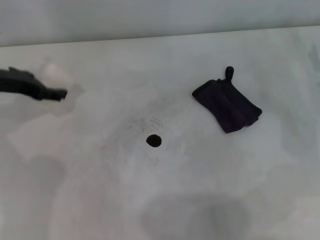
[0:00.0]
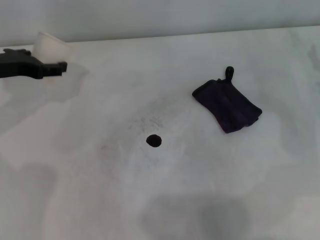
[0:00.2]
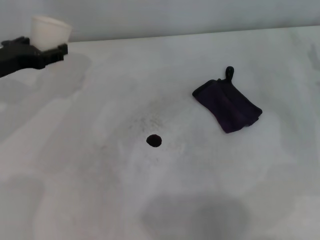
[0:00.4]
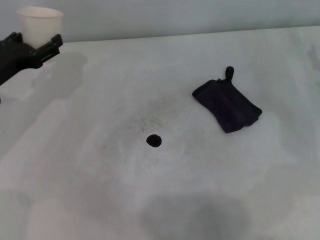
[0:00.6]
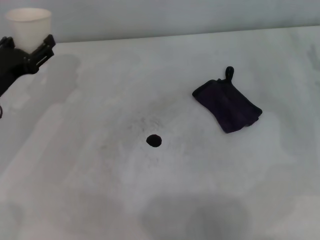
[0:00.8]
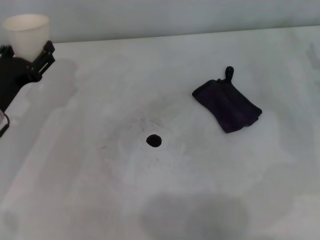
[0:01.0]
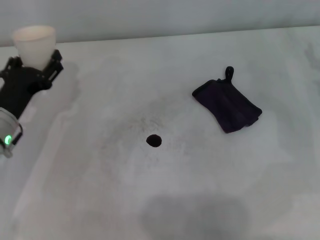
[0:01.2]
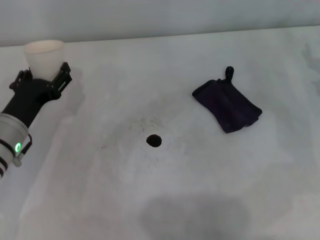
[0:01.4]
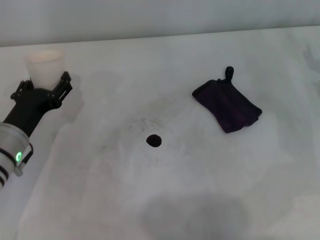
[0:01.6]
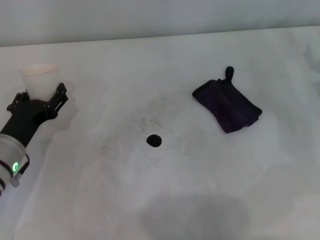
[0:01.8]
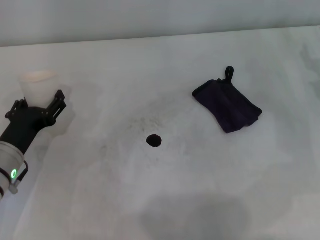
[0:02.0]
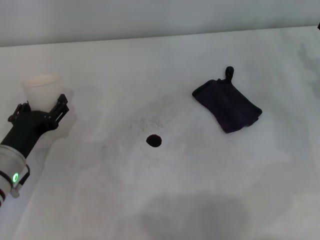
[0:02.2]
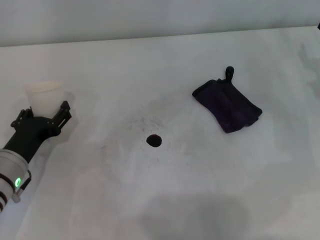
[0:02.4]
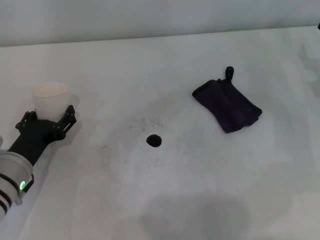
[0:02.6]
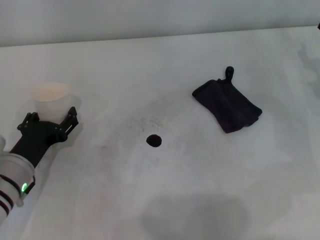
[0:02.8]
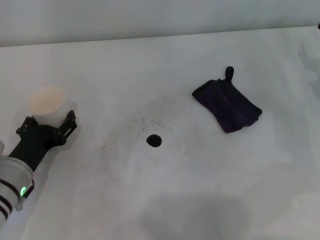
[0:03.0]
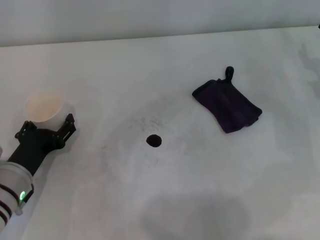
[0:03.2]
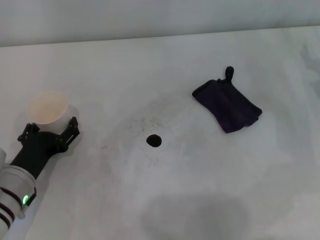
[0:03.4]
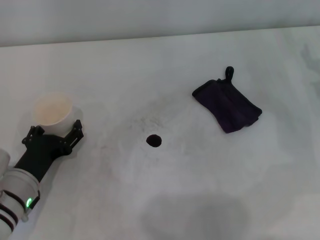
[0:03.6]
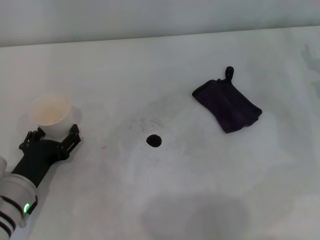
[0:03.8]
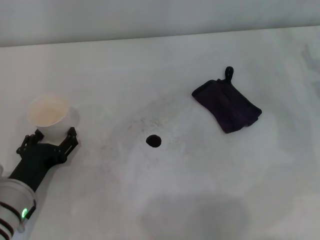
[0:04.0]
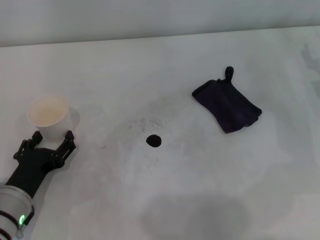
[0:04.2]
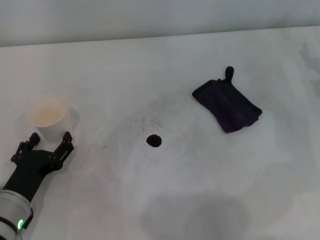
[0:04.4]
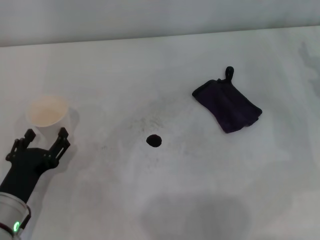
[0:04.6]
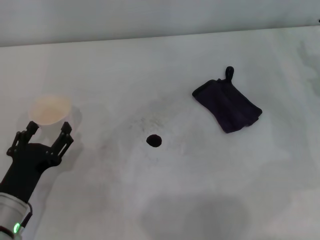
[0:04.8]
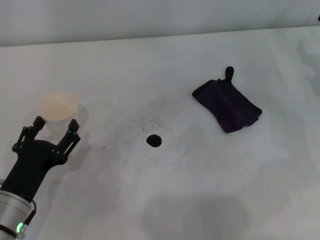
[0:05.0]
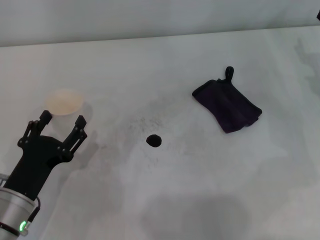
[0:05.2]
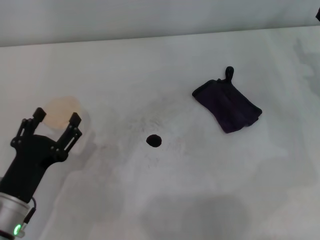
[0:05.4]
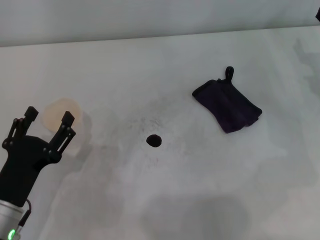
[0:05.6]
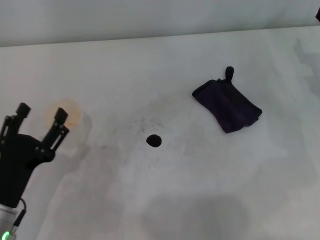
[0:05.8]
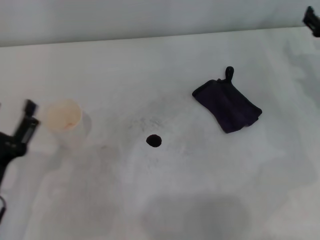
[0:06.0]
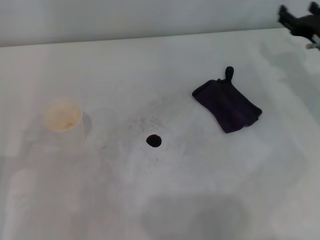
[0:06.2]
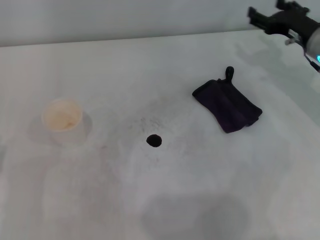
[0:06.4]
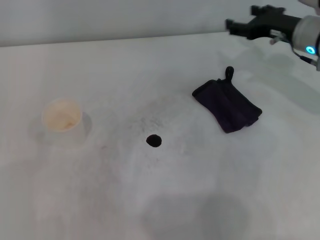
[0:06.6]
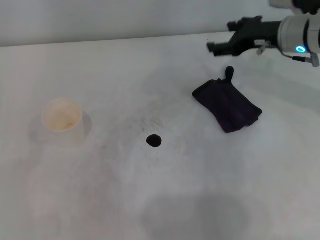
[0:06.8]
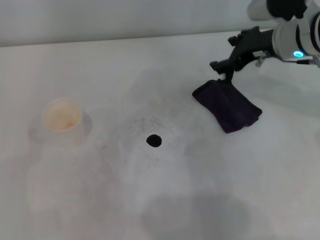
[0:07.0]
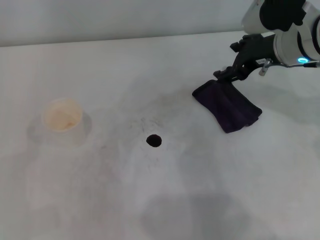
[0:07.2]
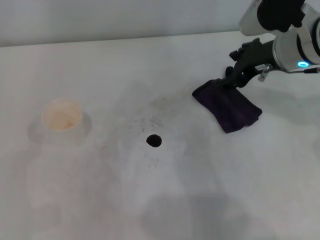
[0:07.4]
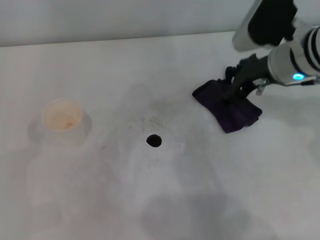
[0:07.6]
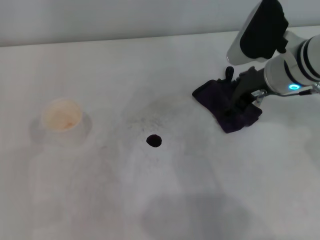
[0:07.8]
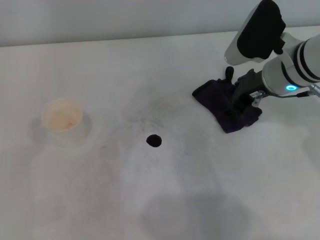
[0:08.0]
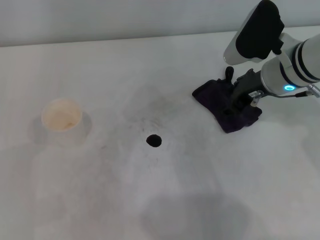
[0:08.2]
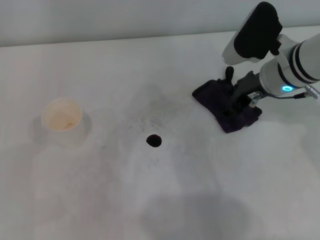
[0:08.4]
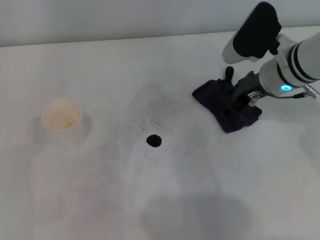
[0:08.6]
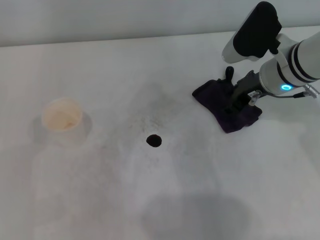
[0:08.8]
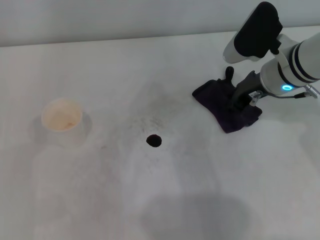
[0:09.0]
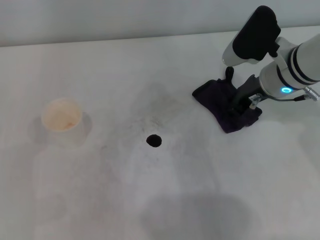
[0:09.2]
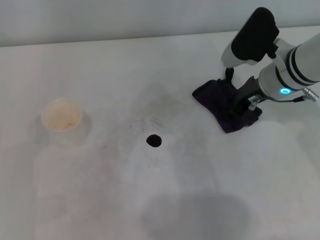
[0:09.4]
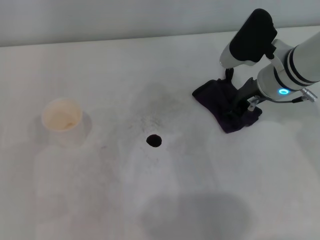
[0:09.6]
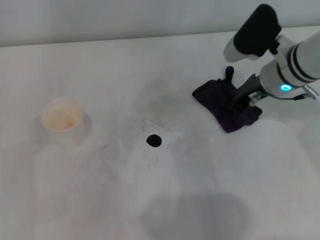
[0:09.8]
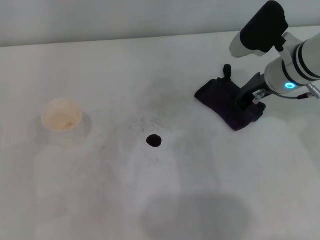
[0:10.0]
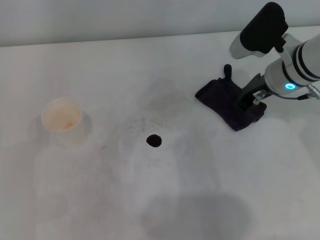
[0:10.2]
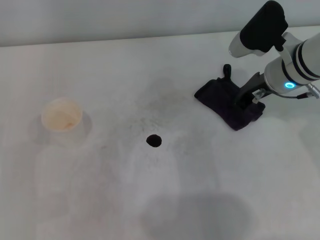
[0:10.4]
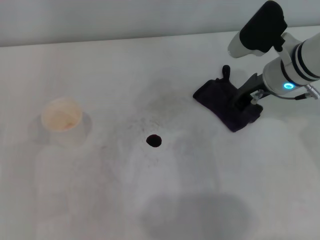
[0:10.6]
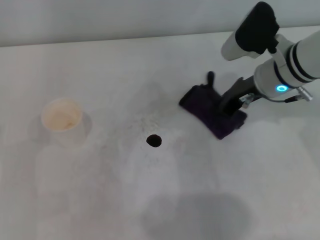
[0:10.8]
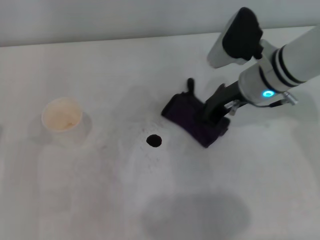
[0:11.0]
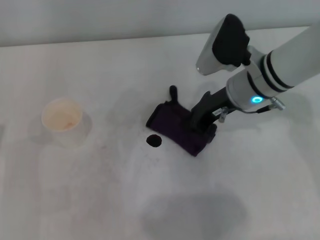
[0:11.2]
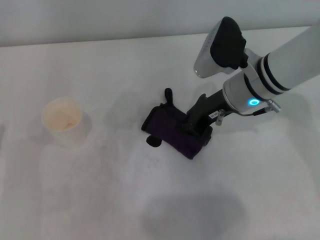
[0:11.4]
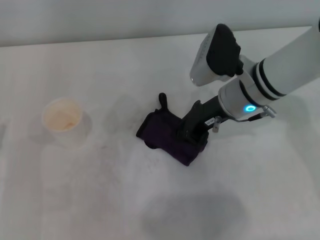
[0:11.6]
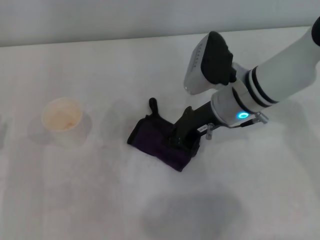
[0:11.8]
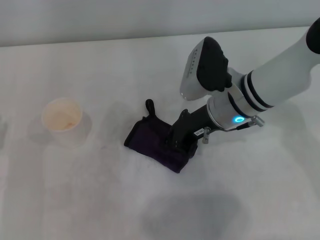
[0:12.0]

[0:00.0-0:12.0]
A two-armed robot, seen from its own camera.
Step, 0:00.0 to 0:04.0: Stand the paper cup upright with the left gripper.
Step, 0:04.2 to 0:10.2: Grasp the rag with the right gripper.
0:00.0 to 0:01.6: The left gripper shifts roughly 15 cm downward and backward.
0:01.6 to 0:03.0: The left gripper moves about 5 cm.
0:03.0 to 0:04.4: The grippers make only small movements.
0:04.4 to 0:06.0: The left gripper changes place by some 5 cm.
0:06.0 to 0:07.6: The left gripper is displaced to the left by approximately 5 cm; the right gripper goes roughly 15 cm to the left and upward.
0:07.6 to 0:09.0: The right gripper closes its fingers.
0:09.0 to 0:10.4: The right gripper closes up.
0:10.4 to 0:12.0: The right gripper travels to the left by approximately 10 cm.

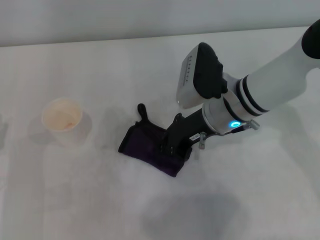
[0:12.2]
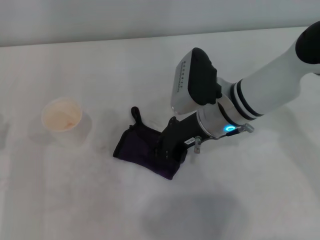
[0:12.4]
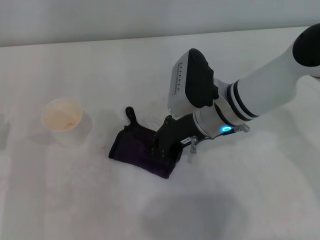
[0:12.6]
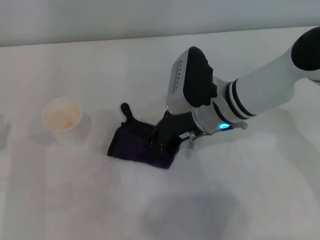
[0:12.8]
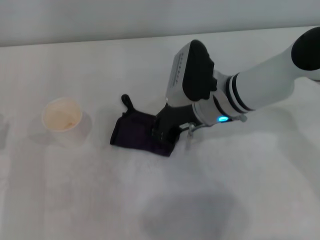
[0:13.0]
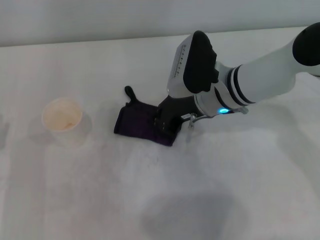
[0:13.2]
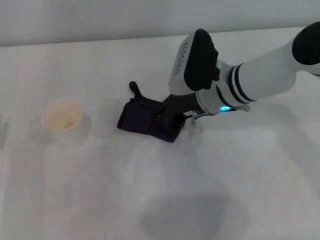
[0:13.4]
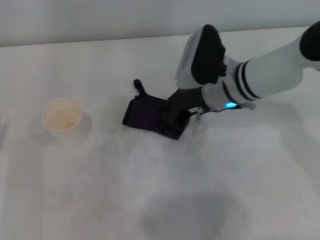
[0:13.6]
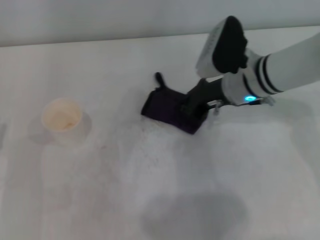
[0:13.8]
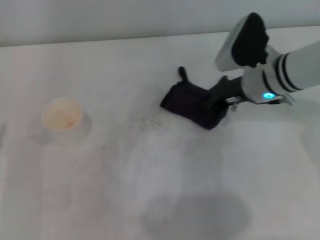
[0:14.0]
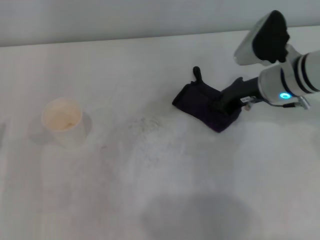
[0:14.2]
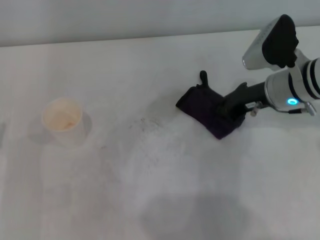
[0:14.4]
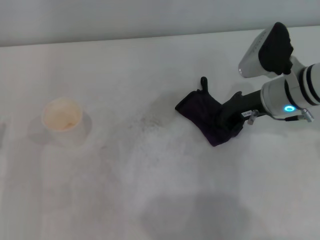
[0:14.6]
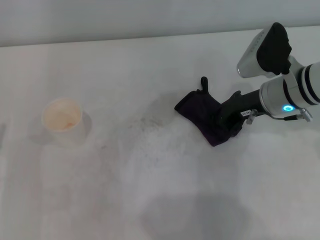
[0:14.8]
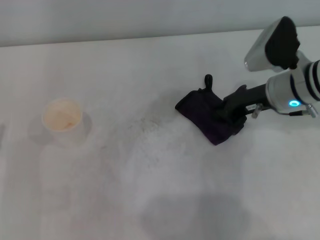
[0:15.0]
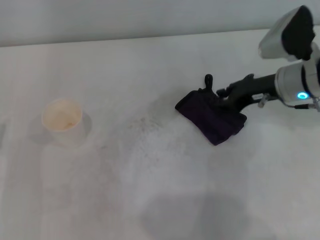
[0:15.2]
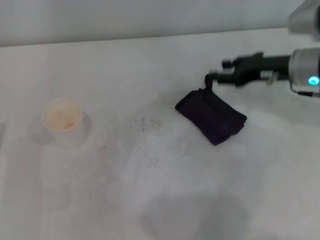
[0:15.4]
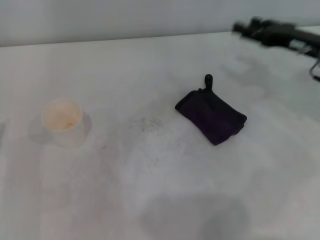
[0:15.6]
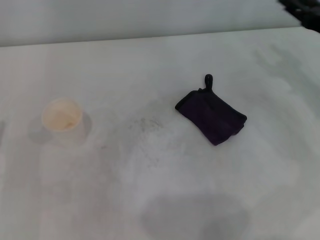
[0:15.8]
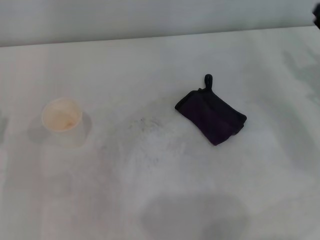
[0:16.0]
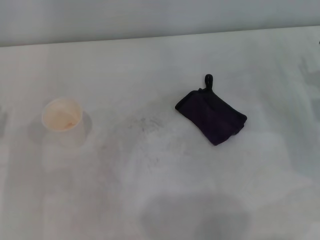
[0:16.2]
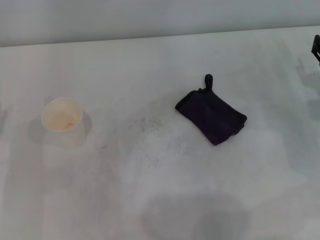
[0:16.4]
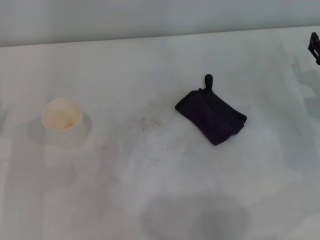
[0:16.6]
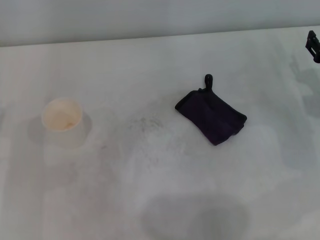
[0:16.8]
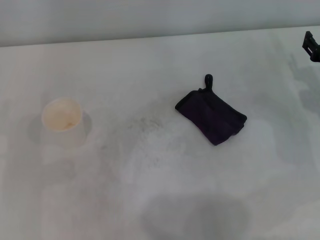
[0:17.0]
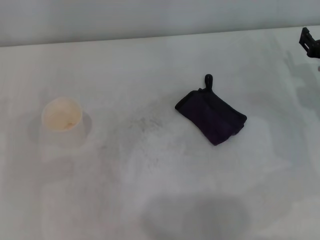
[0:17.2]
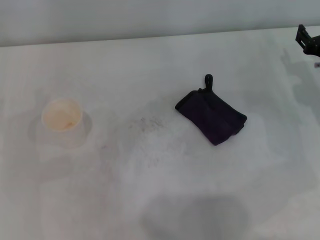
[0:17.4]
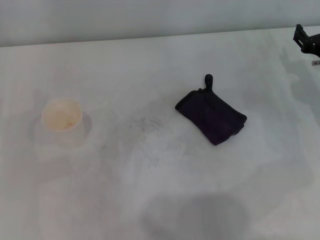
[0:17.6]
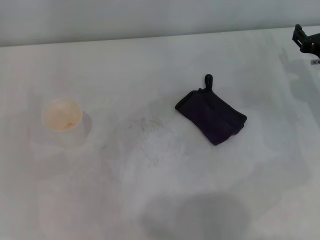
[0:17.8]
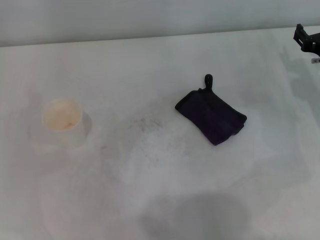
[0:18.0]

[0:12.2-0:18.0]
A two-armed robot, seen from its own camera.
Step, 0:14.2 to 0:14.8: Place the rag on the table with the right gripper.
0:12.2 to 0:13.6: The grippers make only small movements.
0:13.6 to 0:15.0: The right gripper is displaced to the right by some 10 cm.
0:15.0 to 0:16.6: The right gripper shifts roughly 15 cm to the right and downward, and opens.

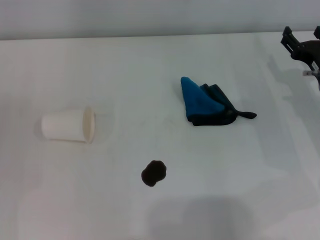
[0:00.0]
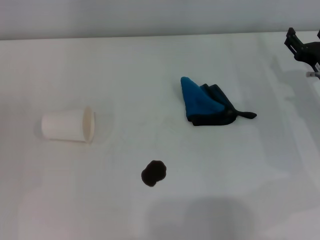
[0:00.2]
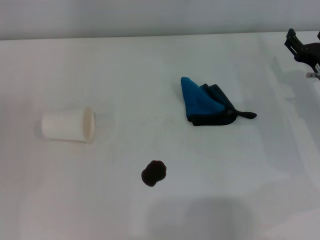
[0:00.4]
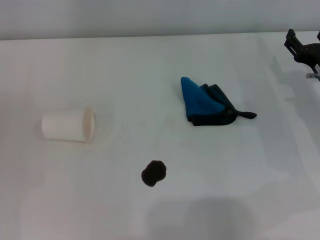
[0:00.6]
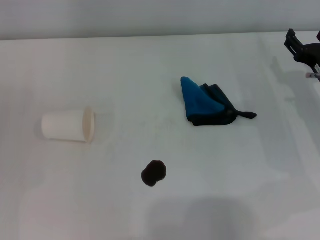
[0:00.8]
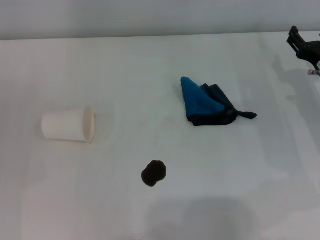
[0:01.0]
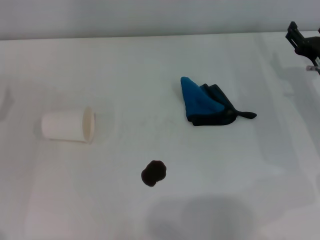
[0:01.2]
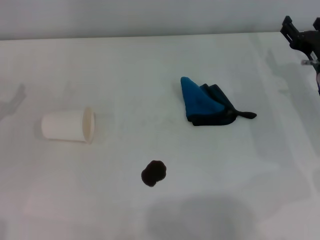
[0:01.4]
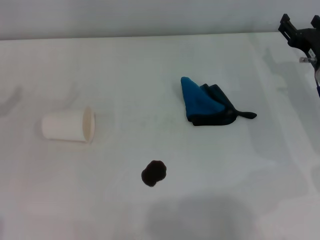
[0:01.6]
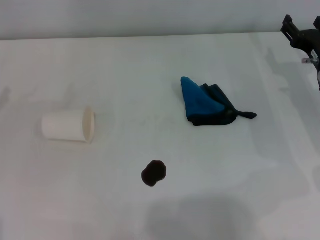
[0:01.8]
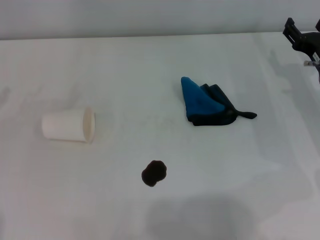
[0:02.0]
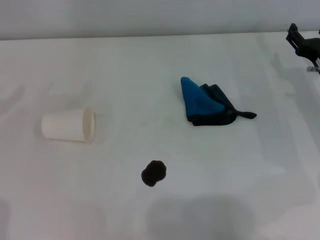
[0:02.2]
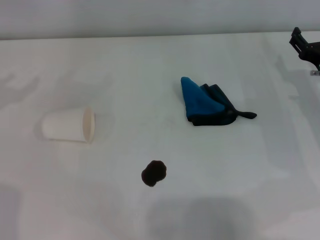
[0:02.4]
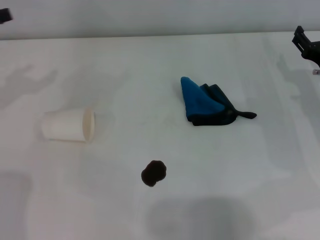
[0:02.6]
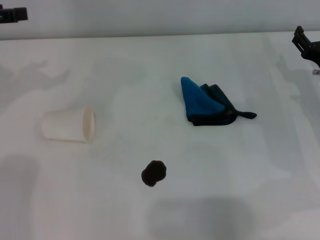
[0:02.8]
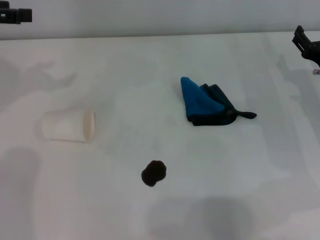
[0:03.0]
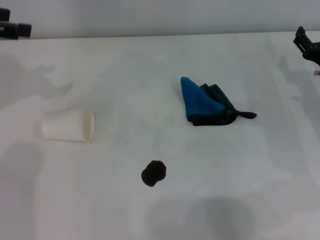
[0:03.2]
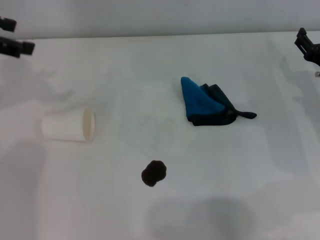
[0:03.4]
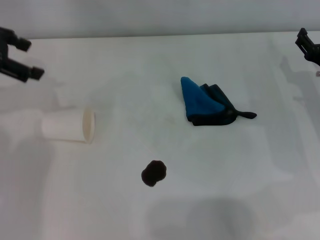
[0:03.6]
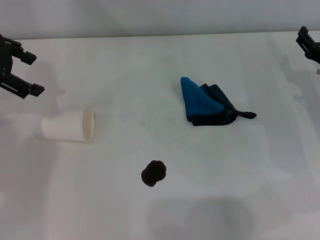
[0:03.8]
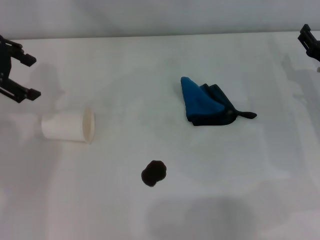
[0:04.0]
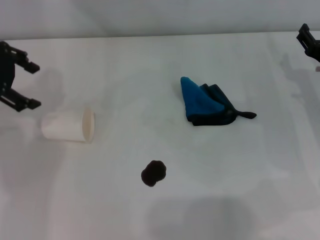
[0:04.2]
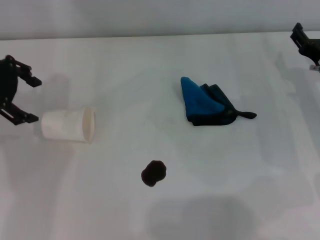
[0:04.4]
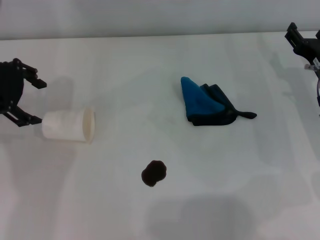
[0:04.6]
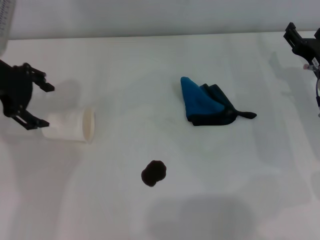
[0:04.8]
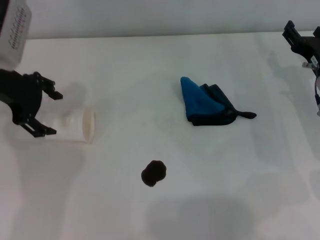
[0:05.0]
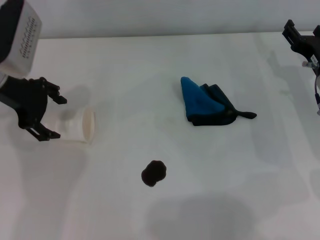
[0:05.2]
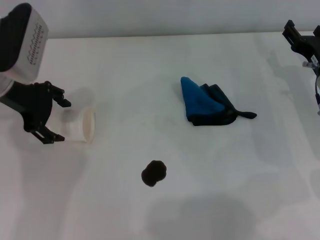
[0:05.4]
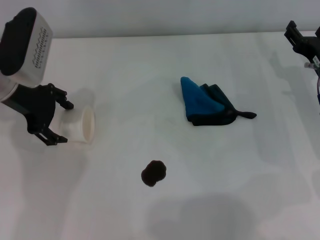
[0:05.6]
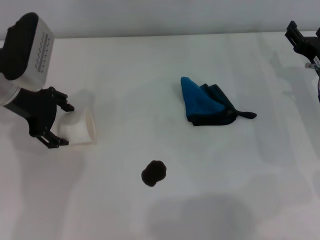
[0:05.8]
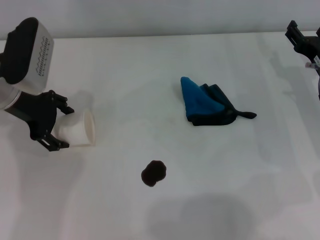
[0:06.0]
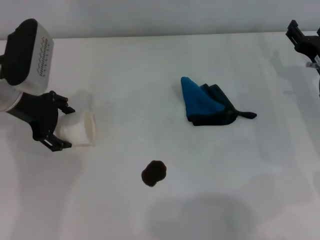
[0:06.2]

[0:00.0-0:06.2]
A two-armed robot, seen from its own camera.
0:01.6 to 0:03.2: The left gripper moves upward and forward, some 20 cm.
0:03.2 to 0:04.6: The left gripper is displaced to the right by roughly 5 cm.
0:04.6 to 0:06.2: The left gripper heads downward, covering about 5 cm.
